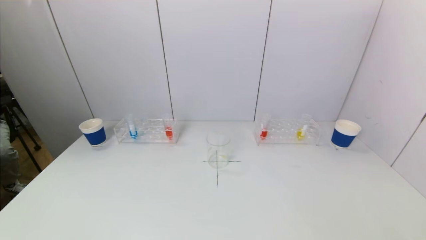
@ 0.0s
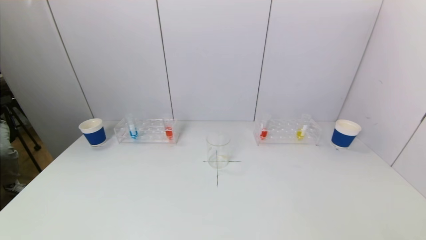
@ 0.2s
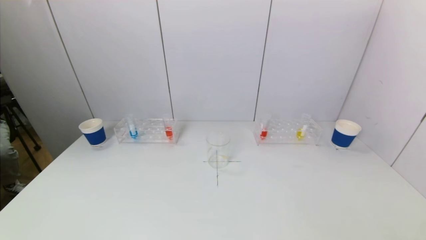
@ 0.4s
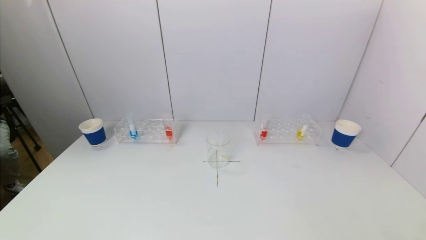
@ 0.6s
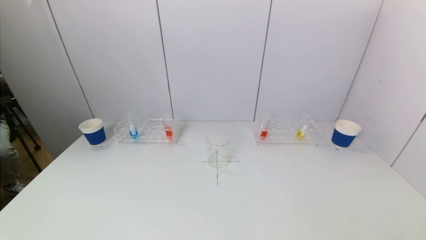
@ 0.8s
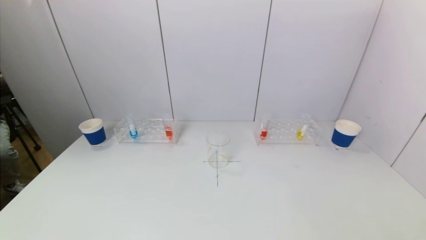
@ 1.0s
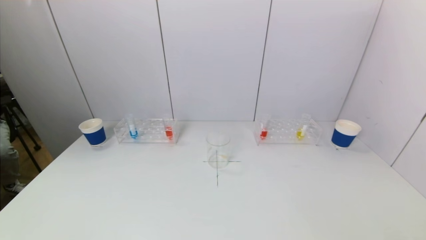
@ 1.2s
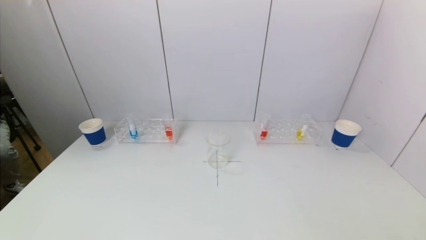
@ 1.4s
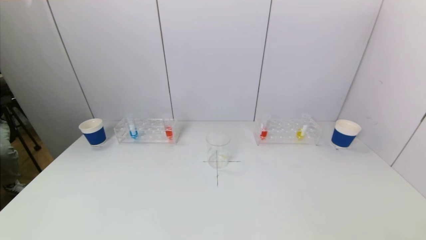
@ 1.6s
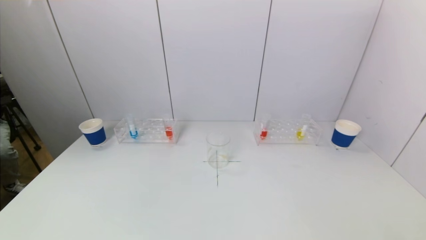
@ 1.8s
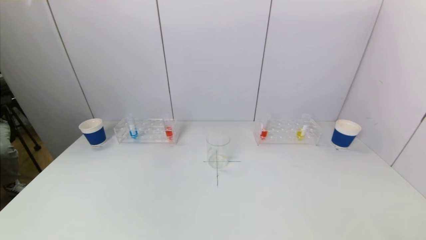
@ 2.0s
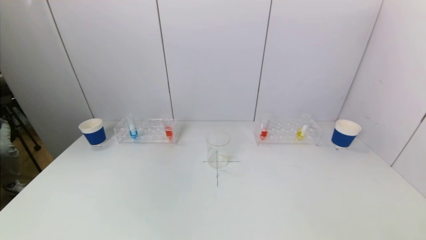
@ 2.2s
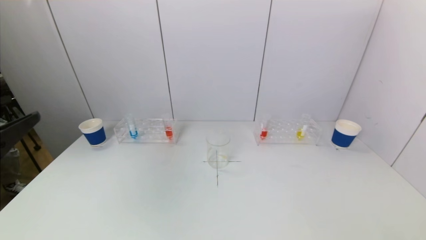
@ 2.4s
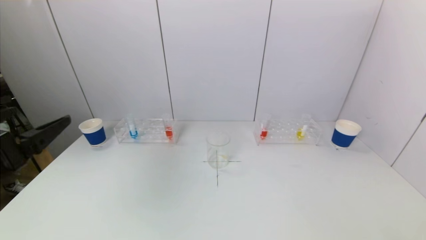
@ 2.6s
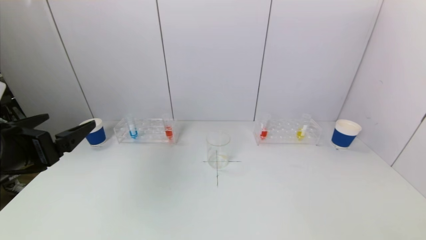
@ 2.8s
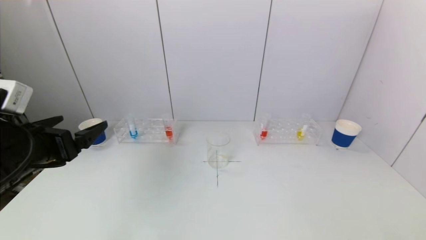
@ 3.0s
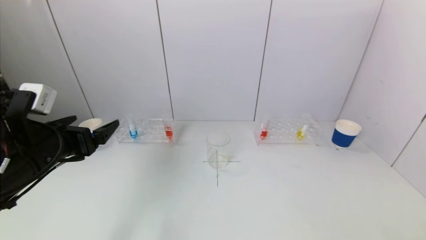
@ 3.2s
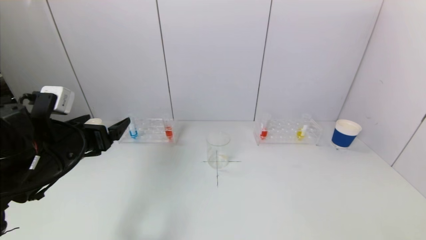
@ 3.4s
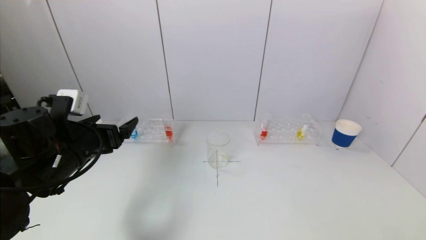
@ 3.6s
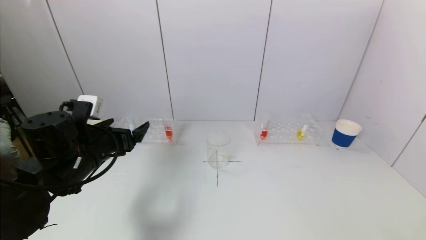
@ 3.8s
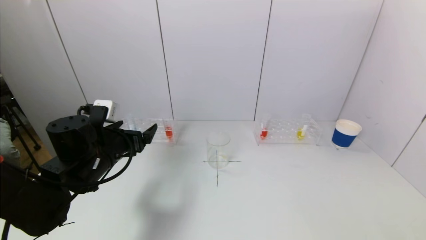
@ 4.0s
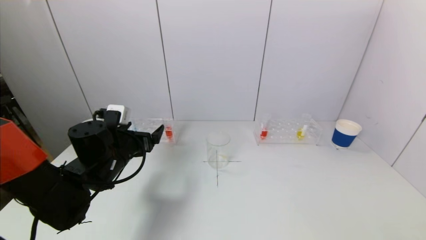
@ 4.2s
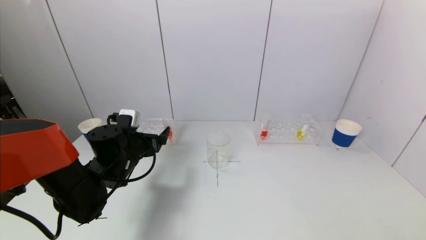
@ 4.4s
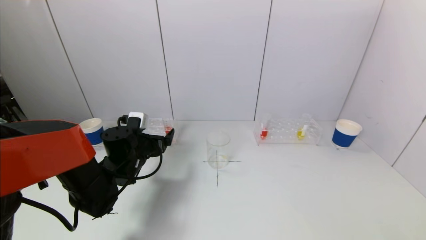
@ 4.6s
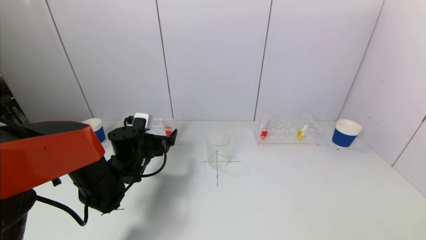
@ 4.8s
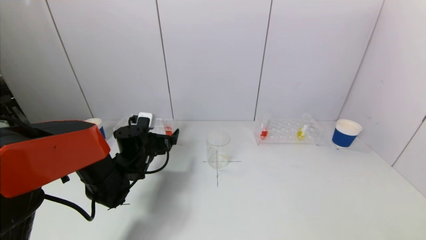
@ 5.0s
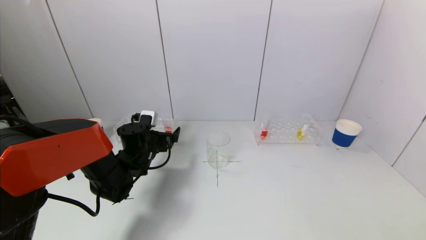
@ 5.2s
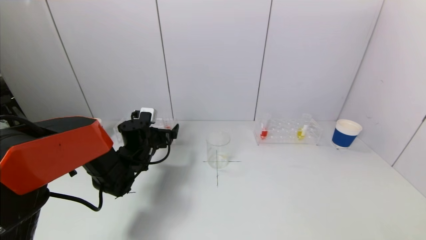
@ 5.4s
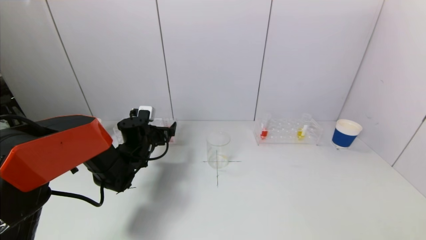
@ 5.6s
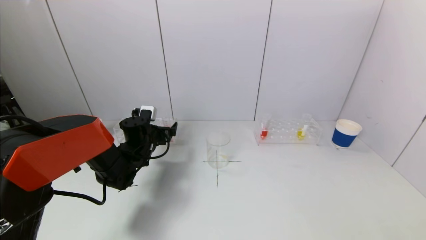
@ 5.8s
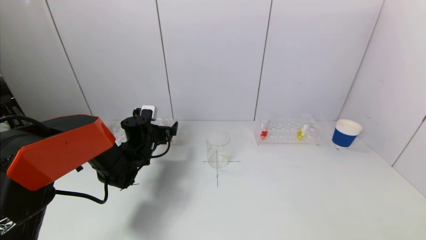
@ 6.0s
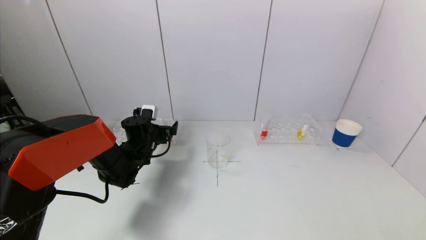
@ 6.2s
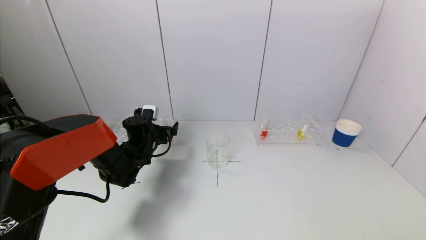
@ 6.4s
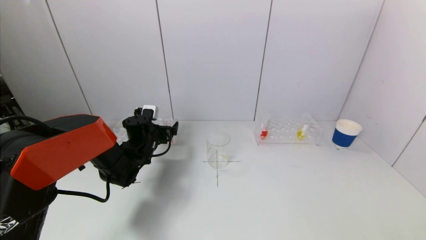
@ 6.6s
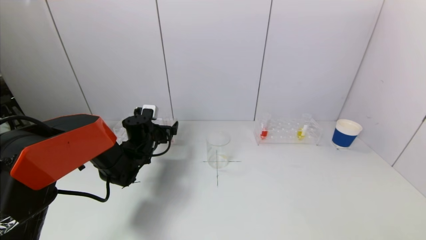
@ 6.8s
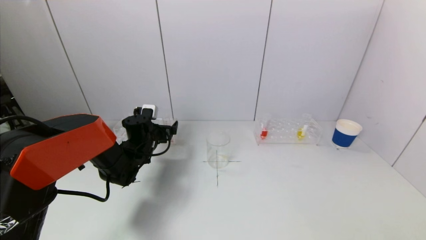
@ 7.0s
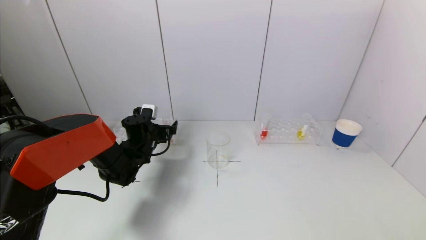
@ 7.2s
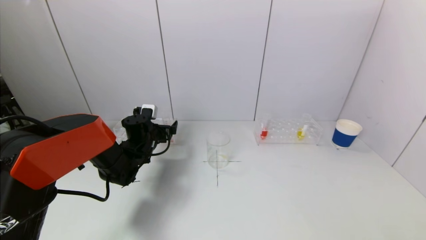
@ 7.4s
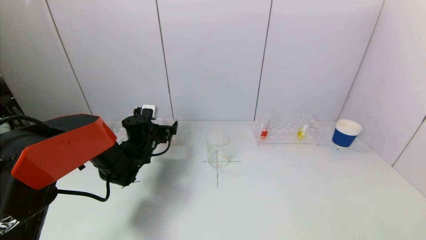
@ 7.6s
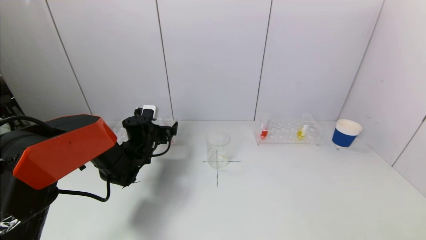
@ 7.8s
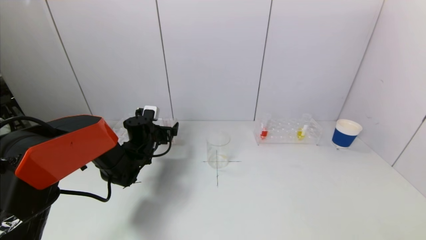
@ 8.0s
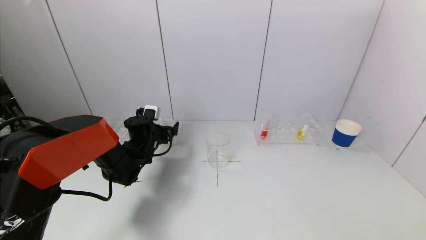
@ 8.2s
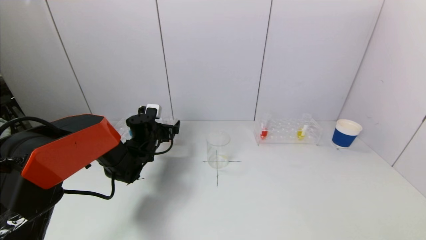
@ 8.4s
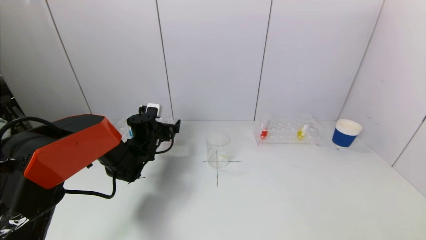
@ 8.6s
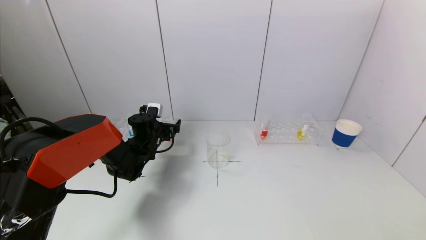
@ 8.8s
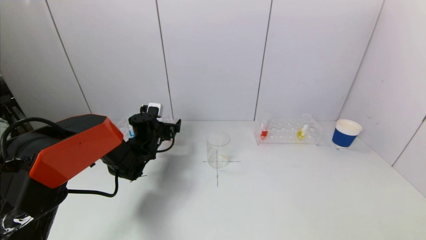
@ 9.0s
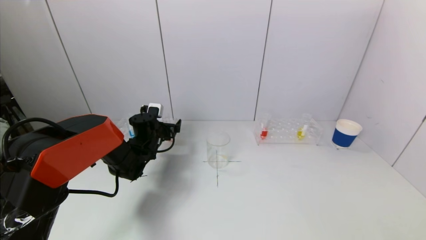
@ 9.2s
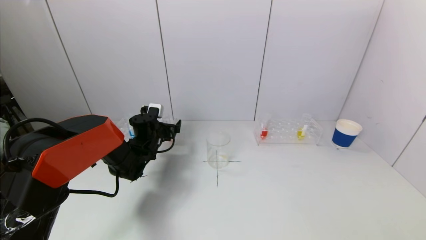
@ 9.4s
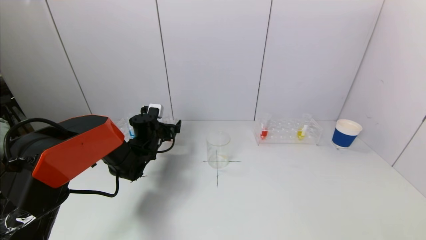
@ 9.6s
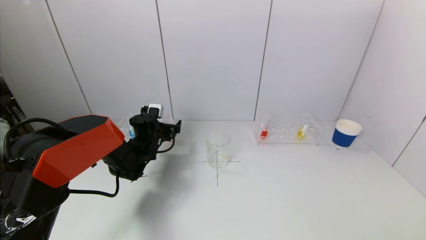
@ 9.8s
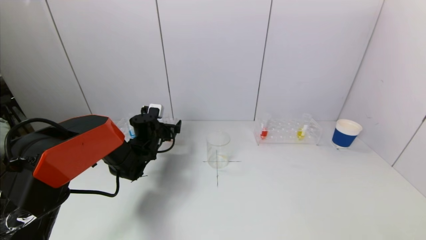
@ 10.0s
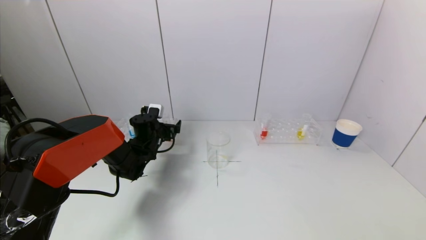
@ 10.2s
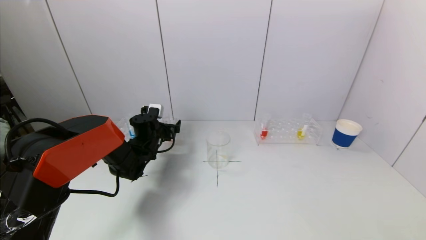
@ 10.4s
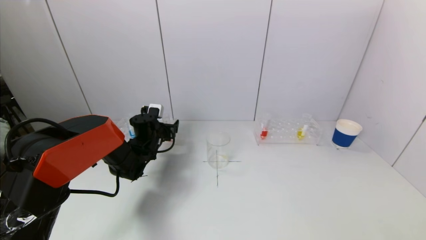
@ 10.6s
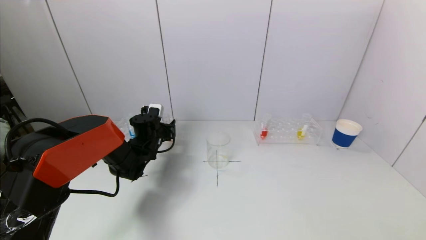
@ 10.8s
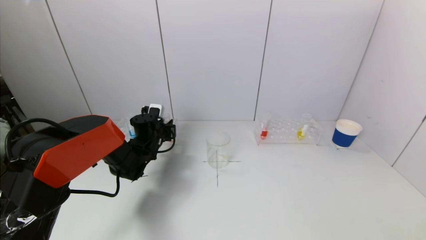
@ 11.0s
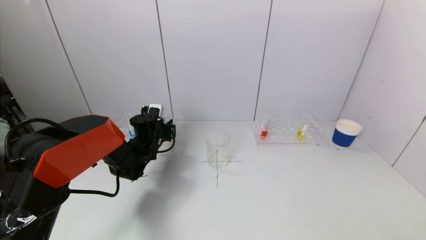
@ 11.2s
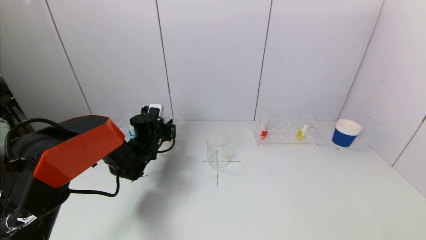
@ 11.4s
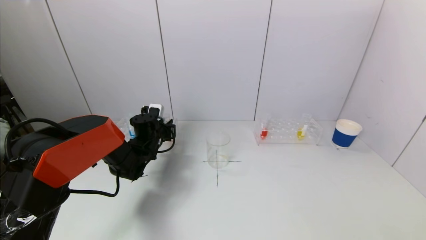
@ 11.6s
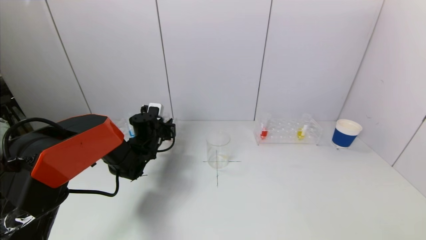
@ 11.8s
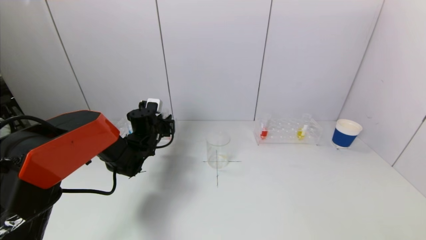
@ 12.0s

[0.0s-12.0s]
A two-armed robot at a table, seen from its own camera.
Task of the whole recording: pick up a test tube with pigment on left test tube rack and a test tube with pigment on right test tube rack by grippers and pour them into the beaker.
1.6s to 3.0s: The left gripper goes approximately 20 cm forward.
3.0s to 4.4s: The left gripper shifts about 20 cm forward, downward and to the right.
4.4s to 6.0s: The left gripper moves forward, about 10 cm.
6.0s to 7.6s: The two grippers keep their place.
7.6s to 9.0s: The grippers stay close to where they were, moving slightly.
9.0s to 10.4s: Neither gripper changes place.
10.4s to 12.0s: The left gripper closes its fingers.

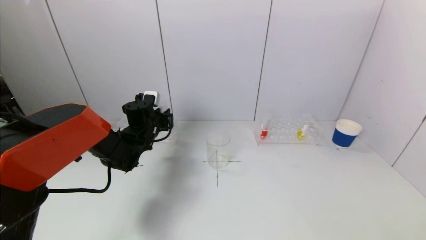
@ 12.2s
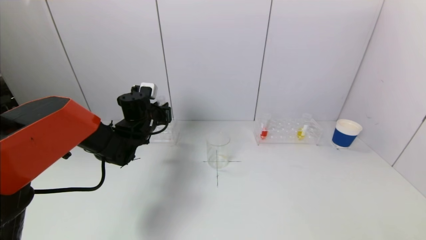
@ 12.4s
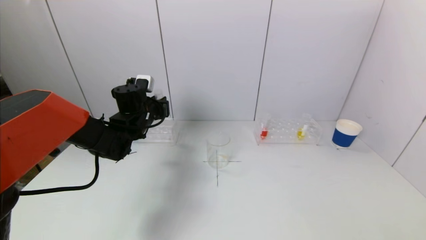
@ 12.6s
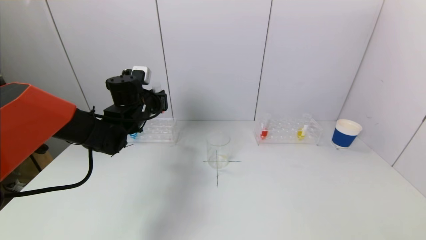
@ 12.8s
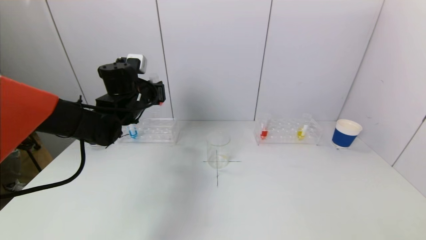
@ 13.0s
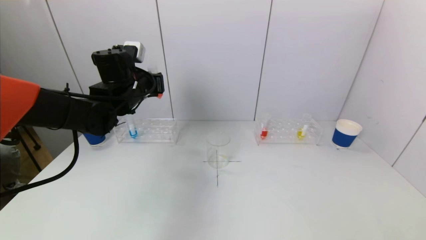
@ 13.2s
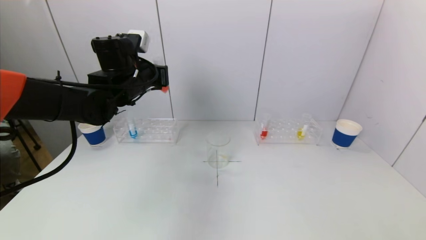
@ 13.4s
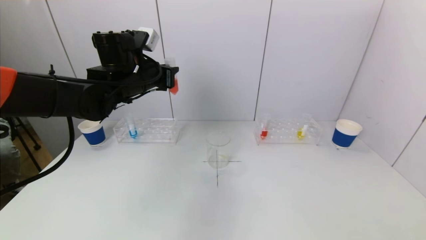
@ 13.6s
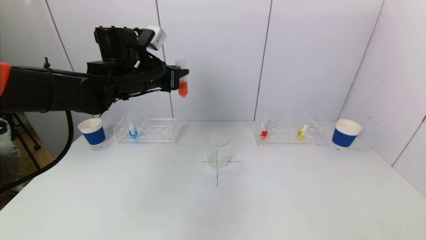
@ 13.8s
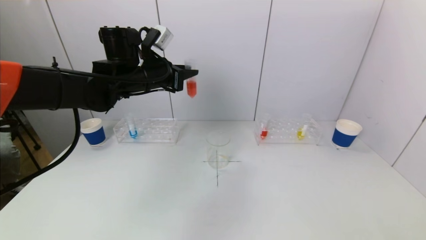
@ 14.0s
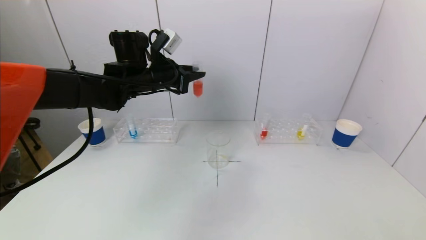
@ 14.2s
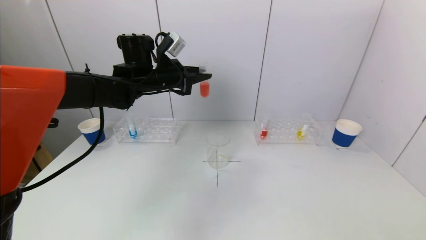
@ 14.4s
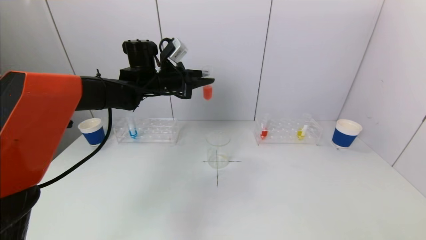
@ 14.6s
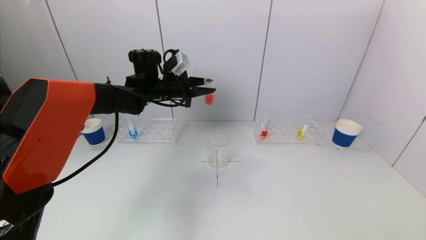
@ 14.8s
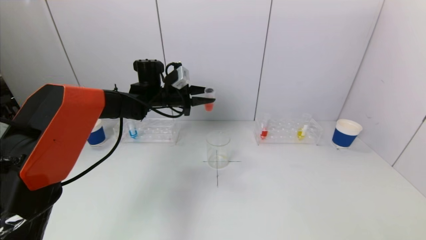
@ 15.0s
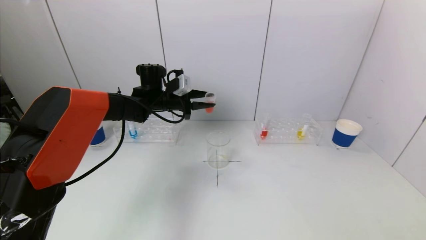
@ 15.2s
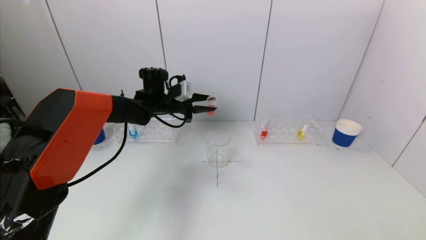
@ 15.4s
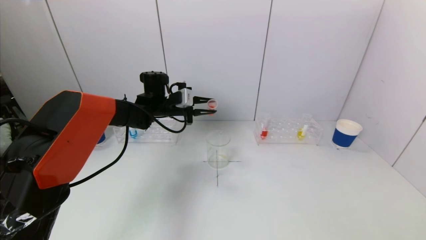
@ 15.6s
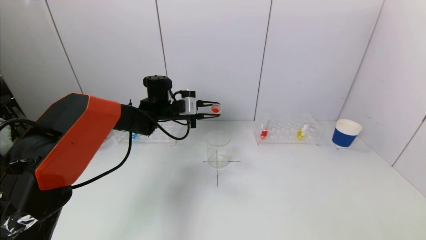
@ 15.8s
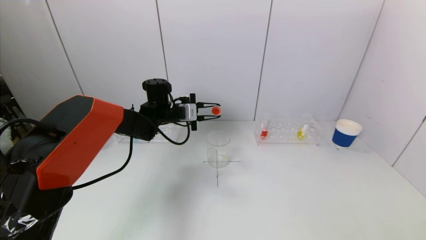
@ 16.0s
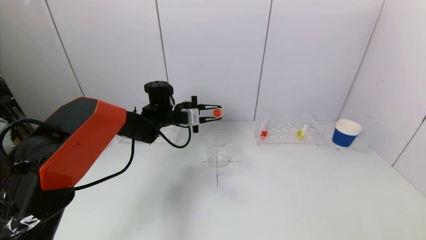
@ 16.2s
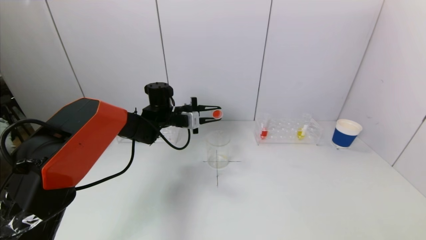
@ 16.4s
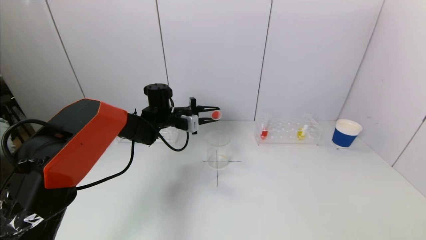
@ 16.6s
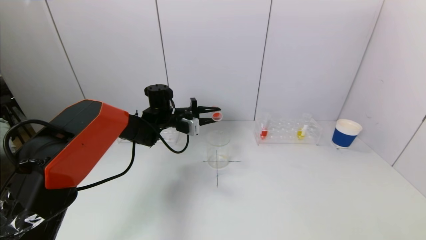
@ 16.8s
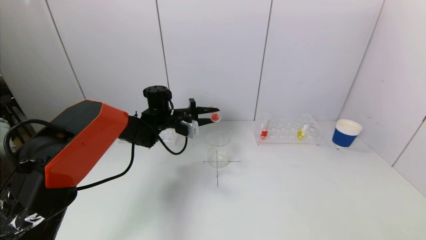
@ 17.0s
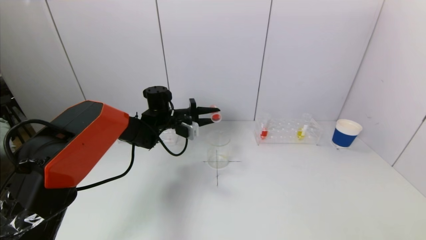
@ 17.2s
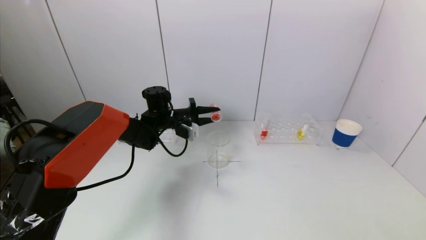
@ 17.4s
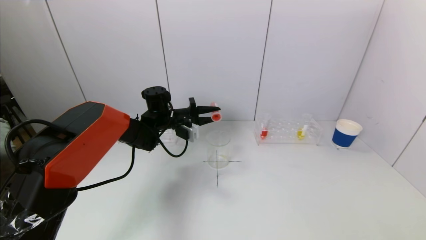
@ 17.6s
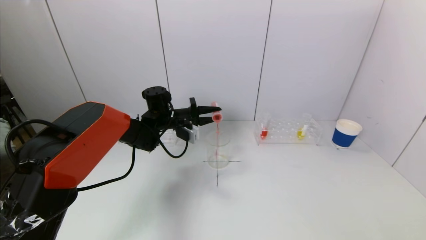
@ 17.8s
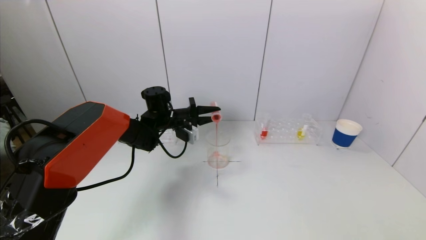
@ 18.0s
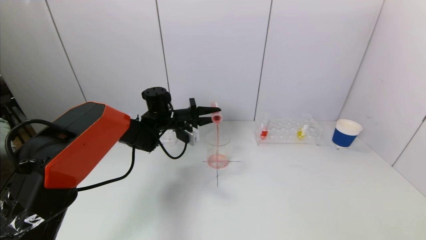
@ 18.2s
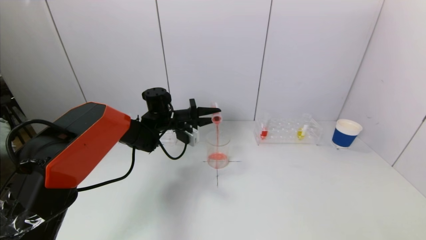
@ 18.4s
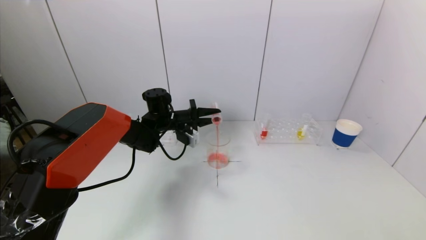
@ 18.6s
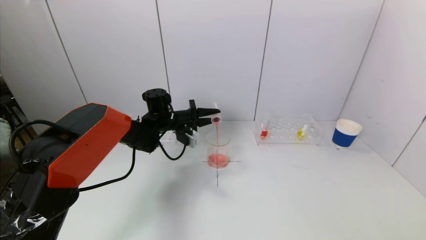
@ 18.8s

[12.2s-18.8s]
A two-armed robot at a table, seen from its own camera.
Task of the whole recording: pick up a test tube with pigment on left test tube rack and a test tube with pigment on right test tube rack by grippers and pour them into the beaker.
12.2s to 13.8s: The left gripper travels upward by some 15 cm.
13.8s to 15.4s: The left gripper goes about 15 cm downward and forward.
17.2s to 18.8s: There are only small adjustments of the grippers.
